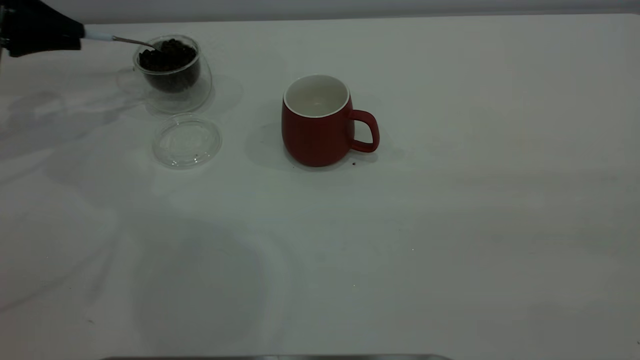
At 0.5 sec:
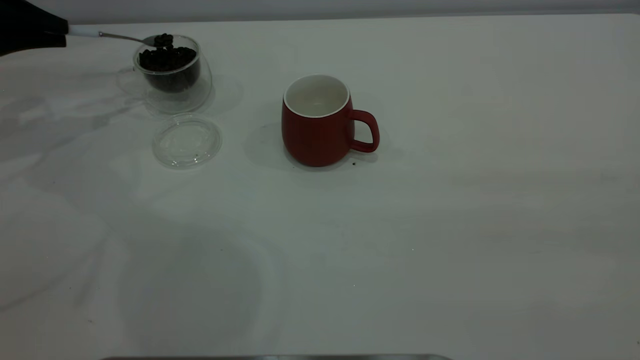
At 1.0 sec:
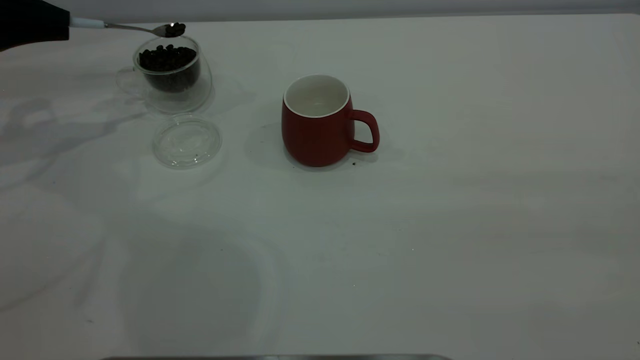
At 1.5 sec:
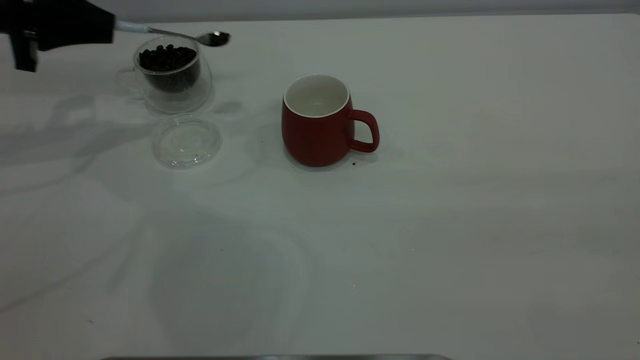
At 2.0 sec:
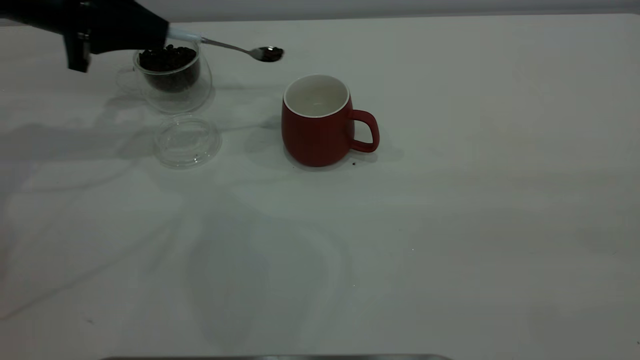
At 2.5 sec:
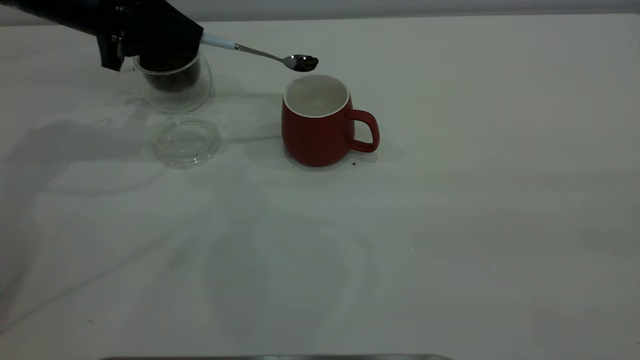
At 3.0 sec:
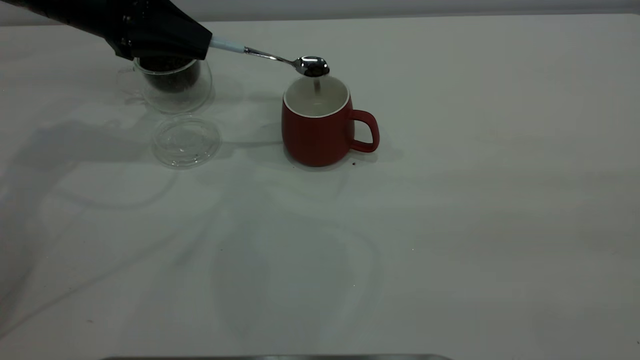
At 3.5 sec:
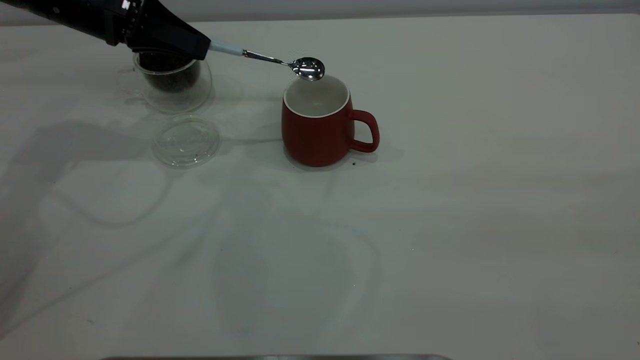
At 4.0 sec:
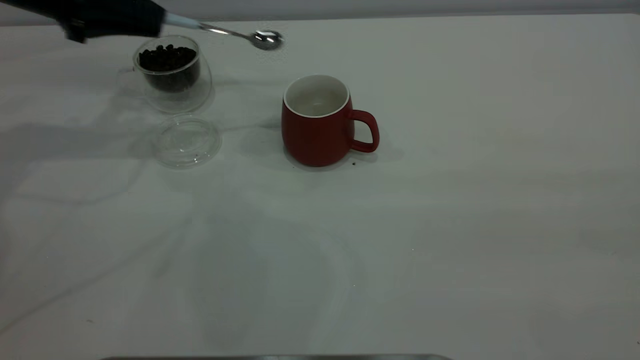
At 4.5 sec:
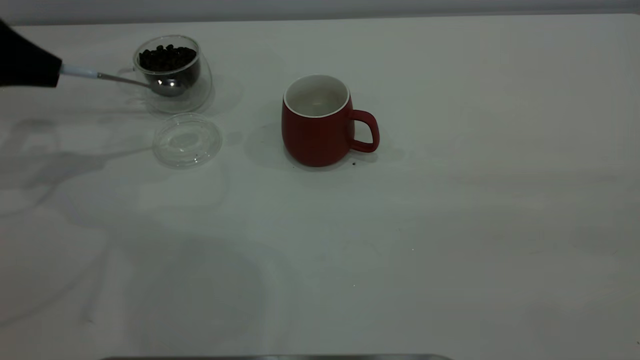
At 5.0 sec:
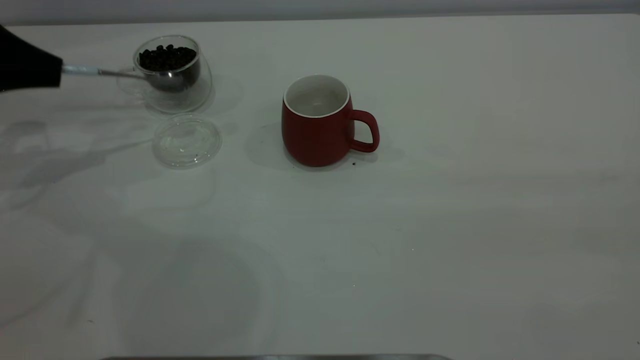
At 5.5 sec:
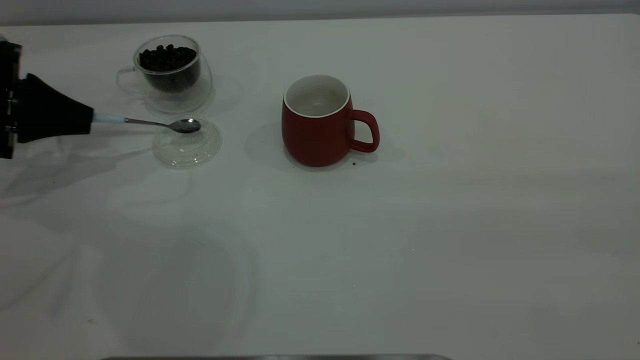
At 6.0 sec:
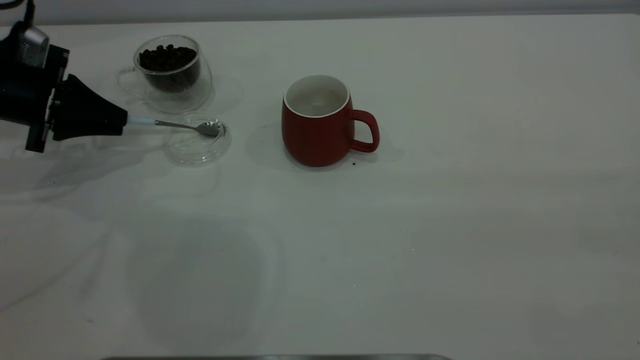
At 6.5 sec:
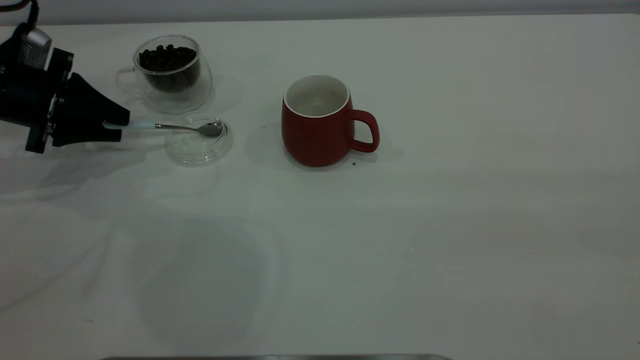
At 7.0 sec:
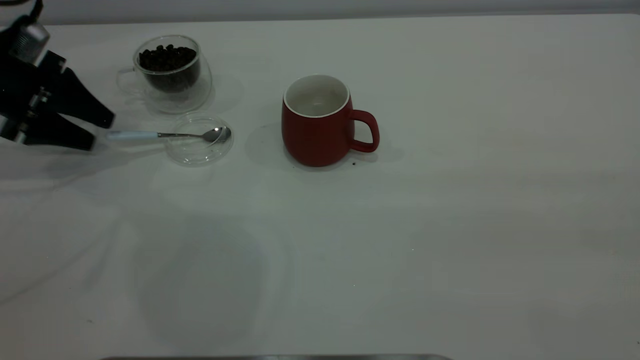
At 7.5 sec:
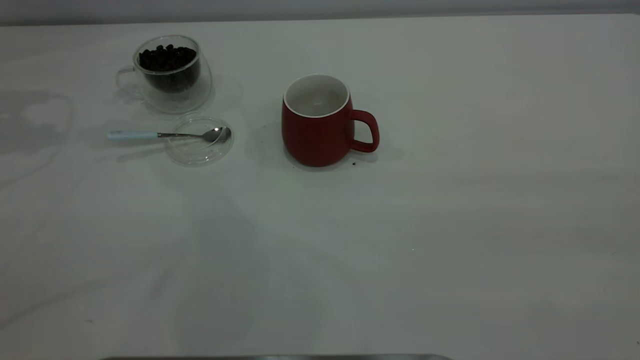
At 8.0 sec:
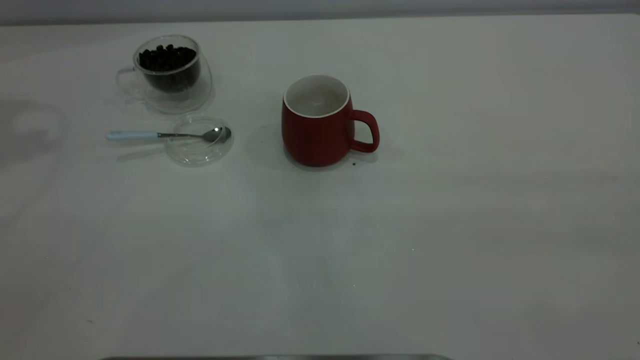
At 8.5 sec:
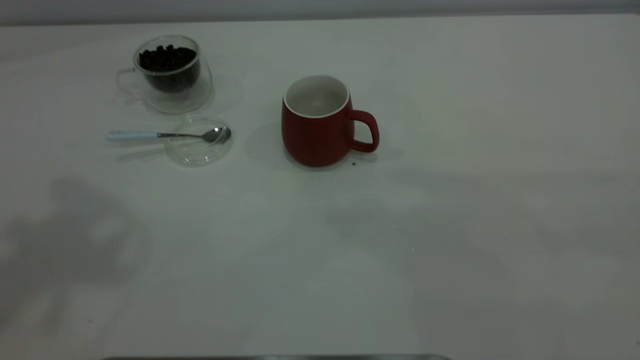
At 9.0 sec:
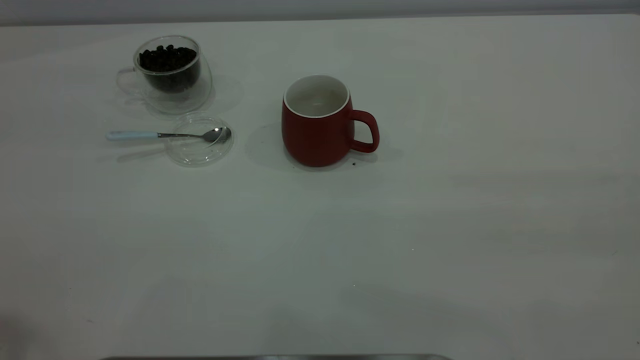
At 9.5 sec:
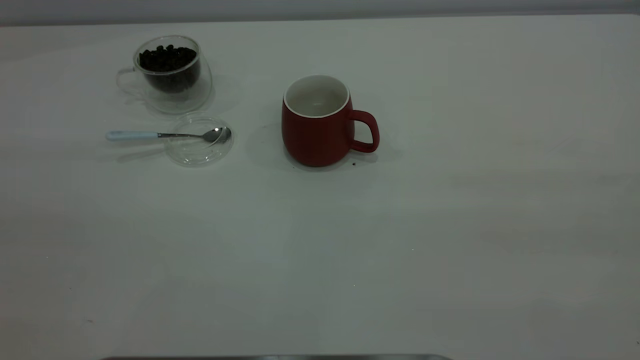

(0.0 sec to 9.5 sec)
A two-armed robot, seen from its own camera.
Task of the whole recording: the right gripper place the red cup in the center of the table, the left gripper take the blue spoon from the cup lid and scoop out the coffee beans from the coffee cup and put them into the red cup, the left gripper put the spoon back into the cup lid.
Step, 0.0 sec - 3.5 sec: Scoop a spoonful of beans into the cup.
Step, 4.0 sec - 7.0 sec: Place the spoon back in its original place.
0.0 sec - 2.0 sec: The left gripper heads to the right, covering approximately 10 cm.
4.0 sec - 5.5 sec: The left gripper goes about 15 cm downward, to the left and backward.
5.5 sec - 7.5 sec: The left gripper heads upward, covering roughly 20 cm, and opens.

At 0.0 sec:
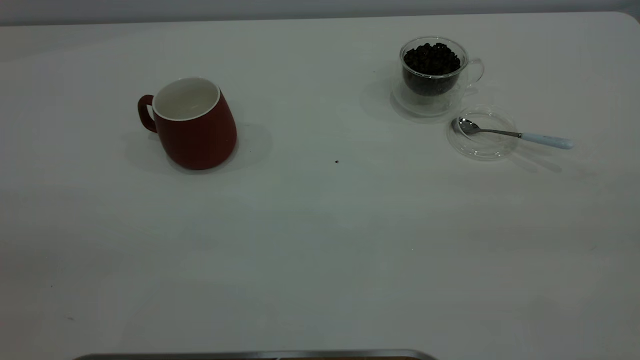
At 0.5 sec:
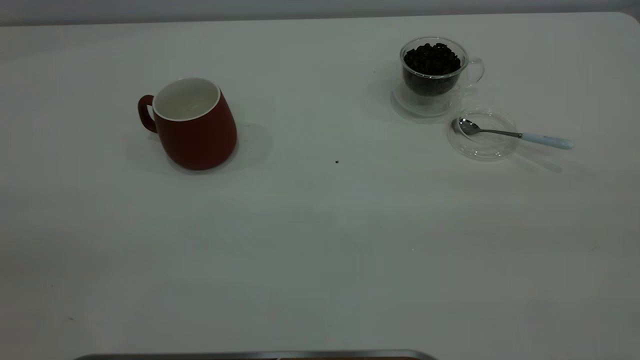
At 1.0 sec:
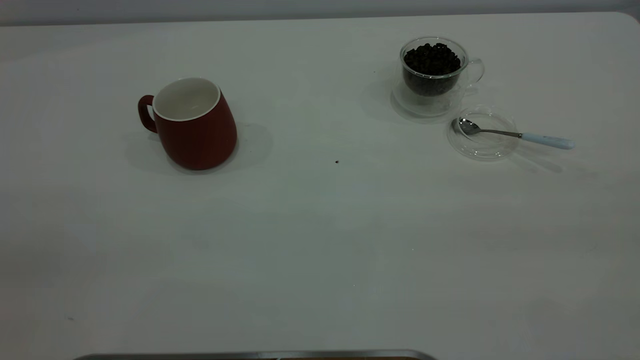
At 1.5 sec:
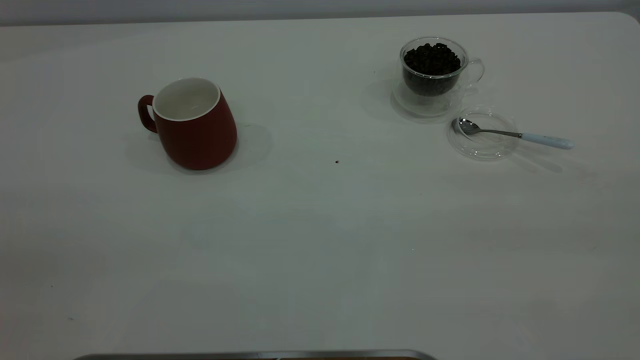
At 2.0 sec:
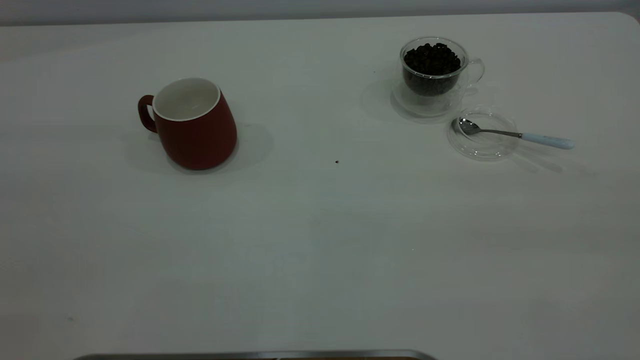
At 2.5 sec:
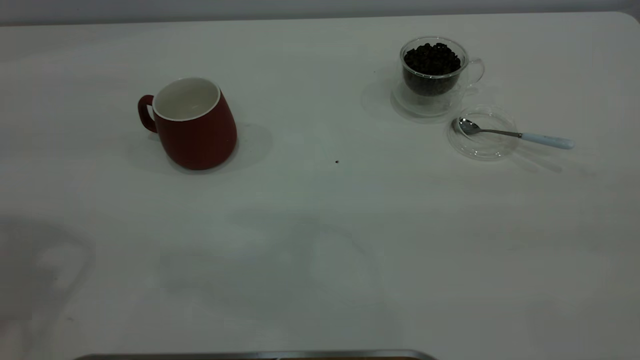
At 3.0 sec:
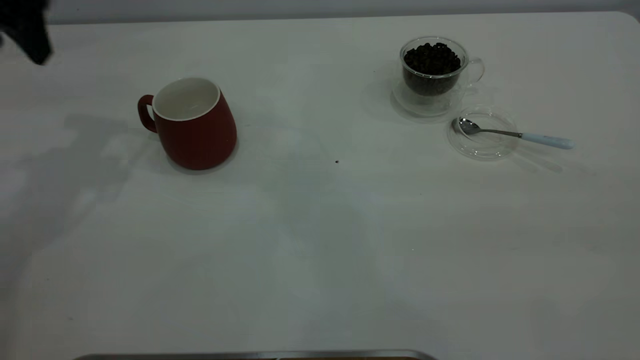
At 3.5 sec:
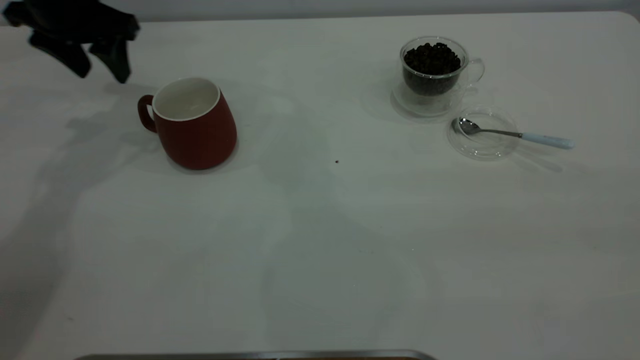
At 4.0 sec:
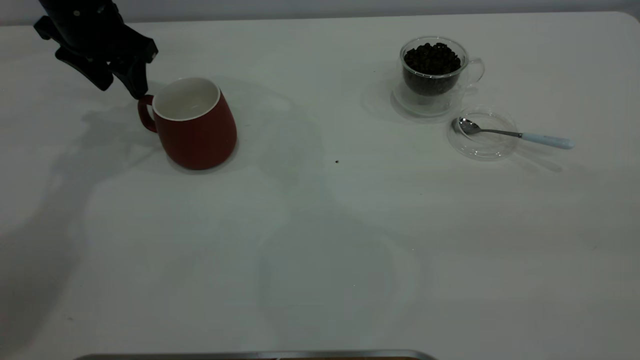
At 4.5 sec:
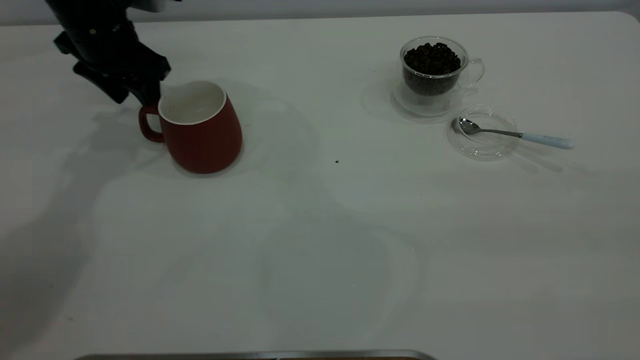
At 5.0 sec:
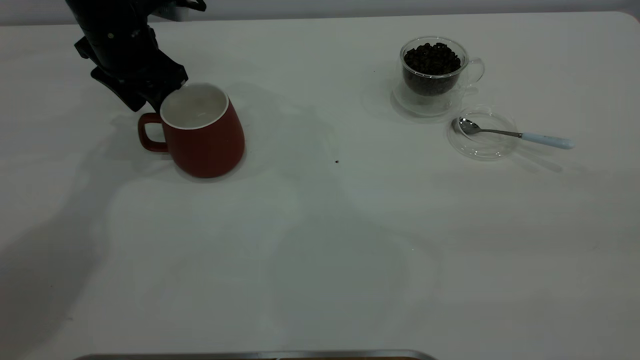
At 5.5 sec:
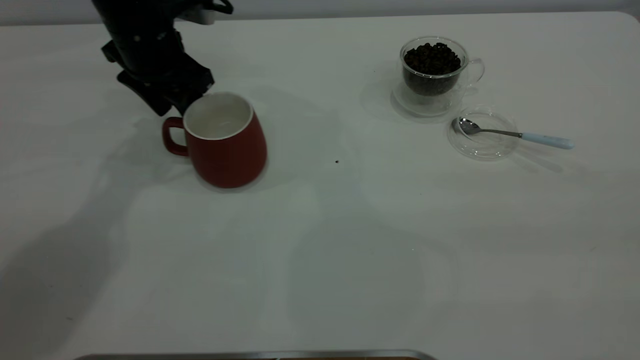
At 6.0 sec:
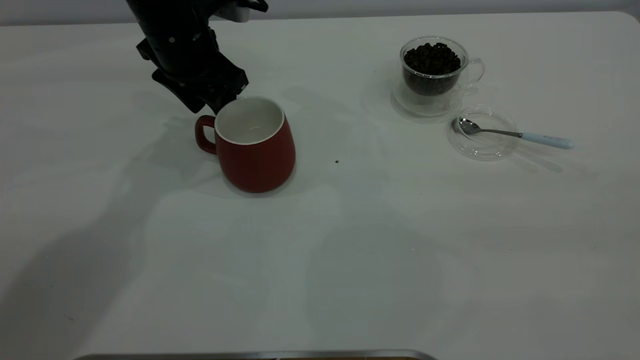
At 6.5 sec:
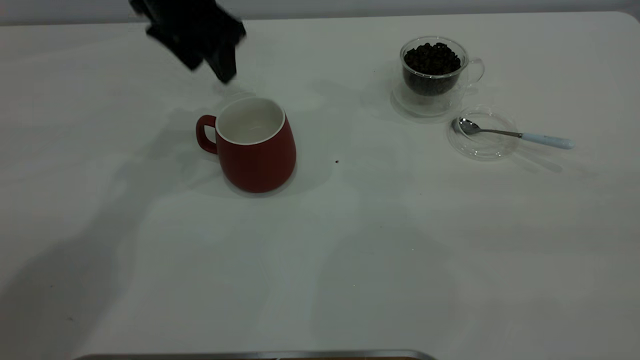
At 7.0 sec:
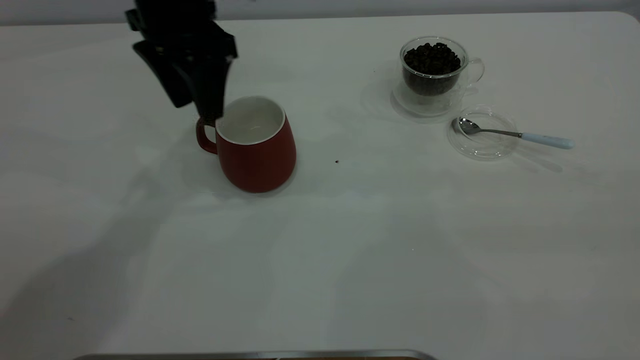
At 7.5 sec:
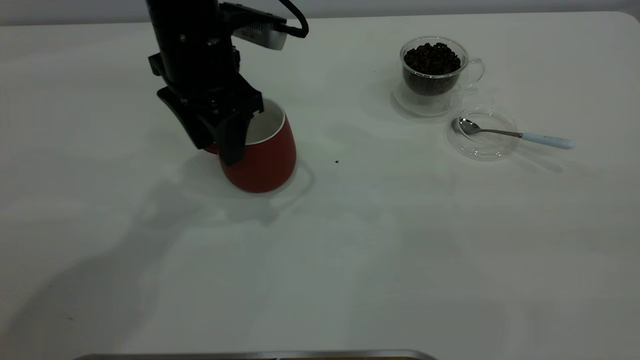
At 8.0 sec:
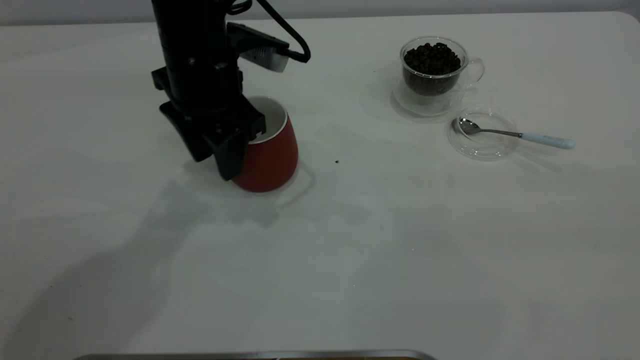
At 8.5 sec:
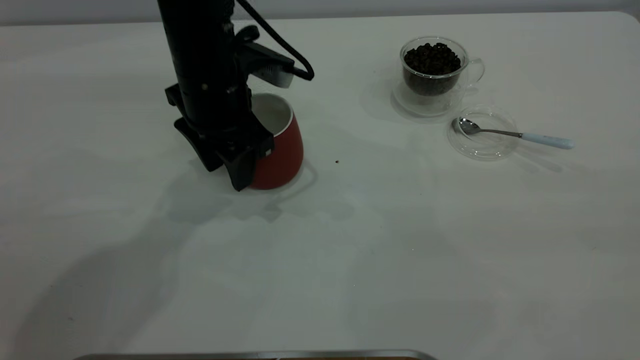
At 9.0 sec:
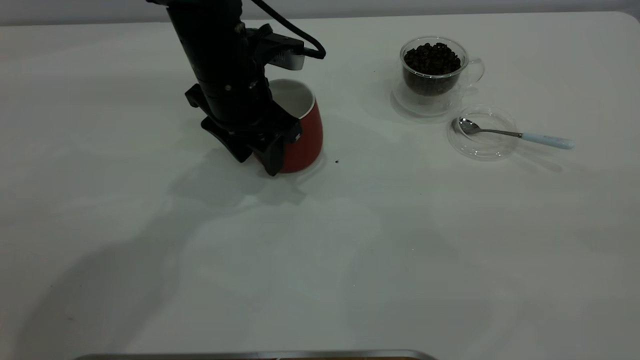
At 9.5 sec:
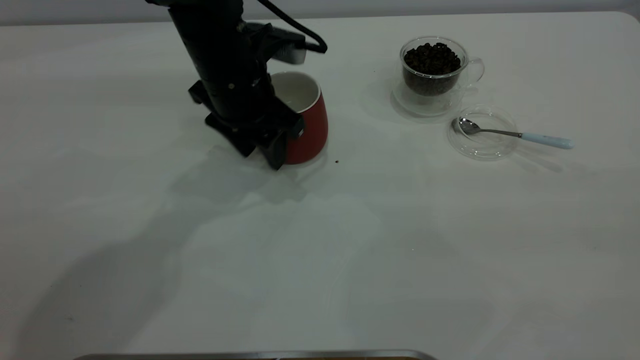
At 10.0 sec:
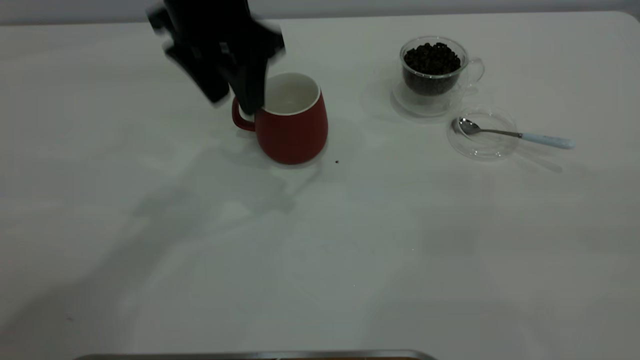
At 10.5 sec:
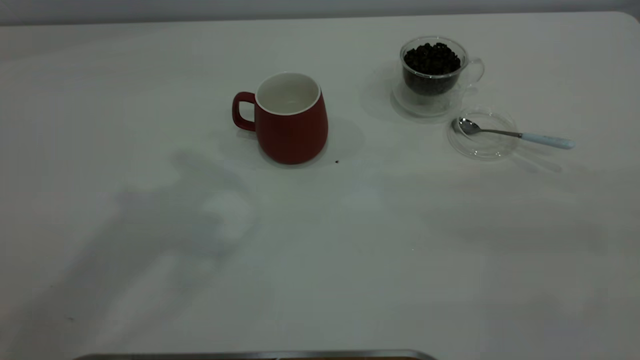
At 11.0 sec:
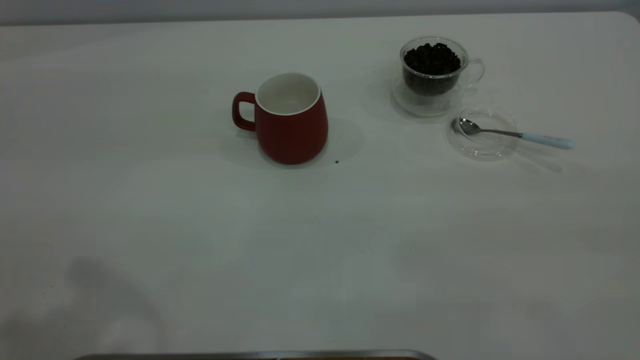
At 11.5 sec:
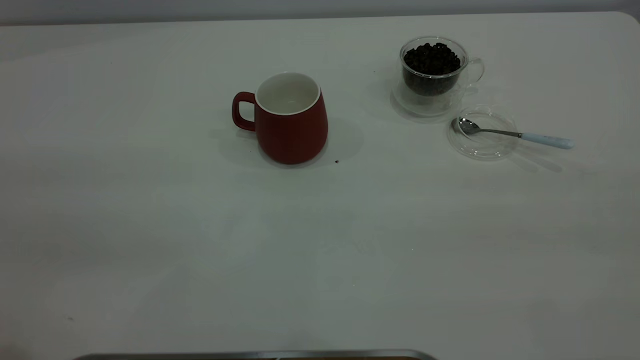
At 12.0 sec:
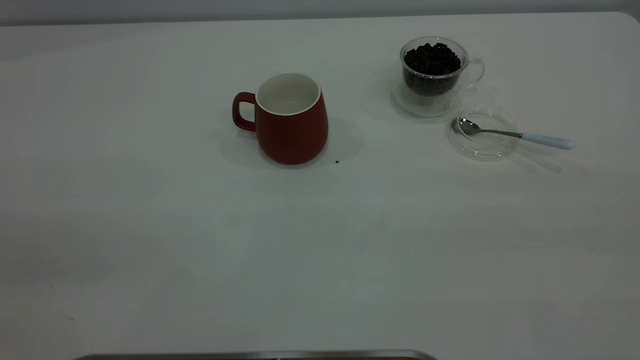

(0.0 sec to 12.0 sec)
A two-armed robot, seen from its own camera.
Task of the whole recording: the left gripper place the red cup in the center of the table, the right gripper take the blue spoon from the cup lid and scoop out the coffee beans from the coffee cup and put them into the red cup, the right gripper put the spoon back into the cup lid.
Step, 0.0 sec - 10.0 sec: Move the cup to the center of view.
2.0 sec - 4.0 sec: The left gripper travels forward and downward by roughly 50 cm.
4.0 sec - 6.0 sec: The left gripper shifts approximately 10 cm to the right.
6.0 sec - 8.0 sec: The left gripper travels backward by some 5 cm.
8.0 sec - 10.0 sec: The left gripper is displaced upward by approximately 10 cm.
10.0 sec - 12.0 sec: The left gripper travels backward and to the left by approximately 40 cm.
